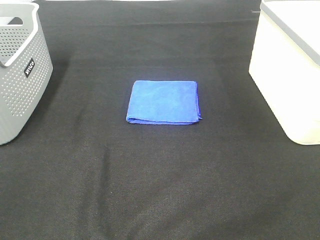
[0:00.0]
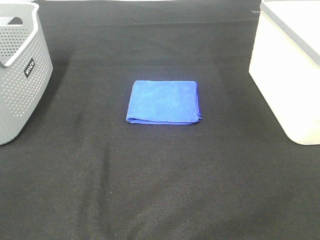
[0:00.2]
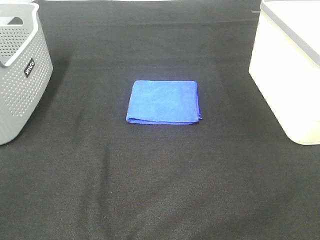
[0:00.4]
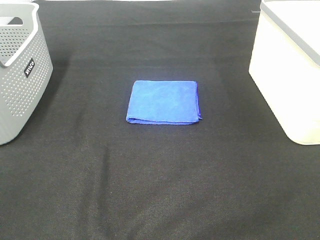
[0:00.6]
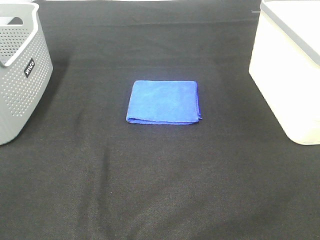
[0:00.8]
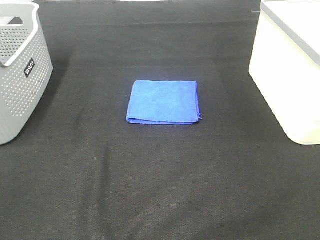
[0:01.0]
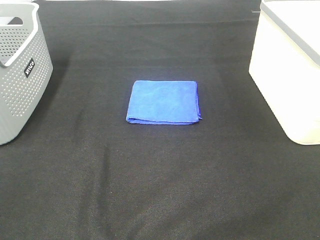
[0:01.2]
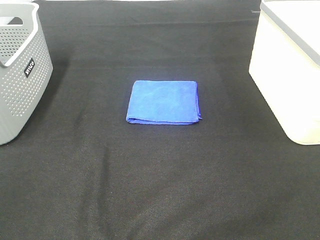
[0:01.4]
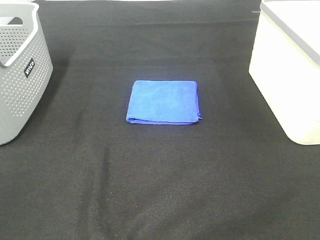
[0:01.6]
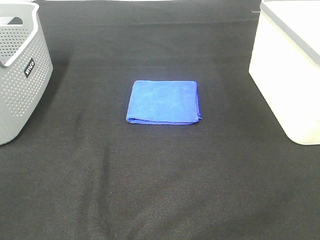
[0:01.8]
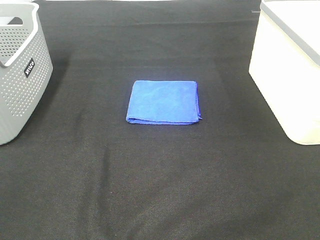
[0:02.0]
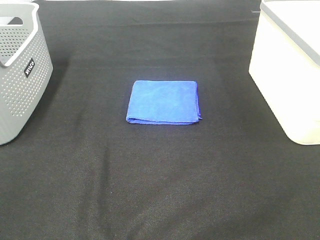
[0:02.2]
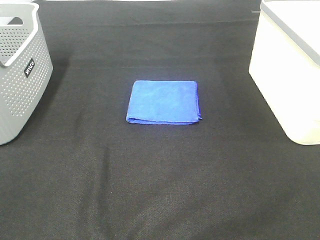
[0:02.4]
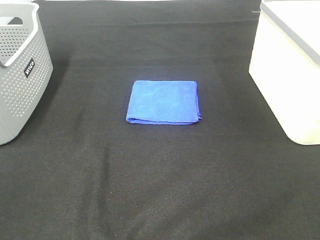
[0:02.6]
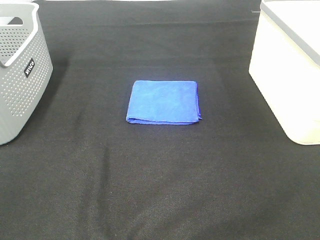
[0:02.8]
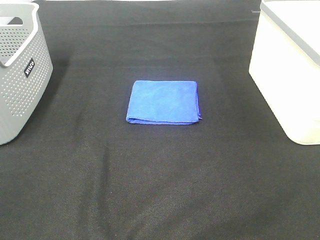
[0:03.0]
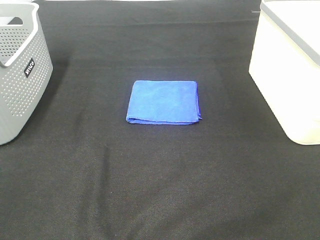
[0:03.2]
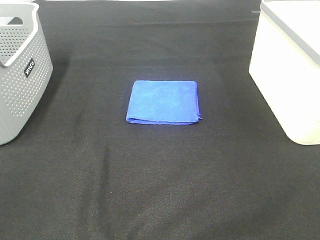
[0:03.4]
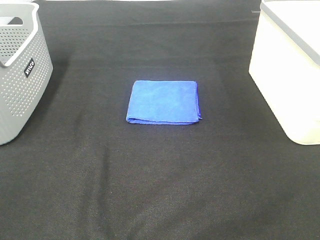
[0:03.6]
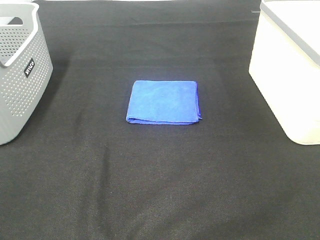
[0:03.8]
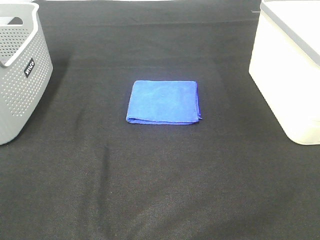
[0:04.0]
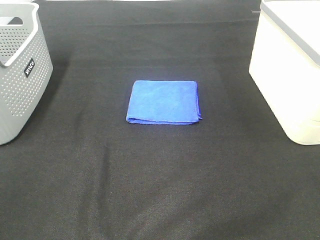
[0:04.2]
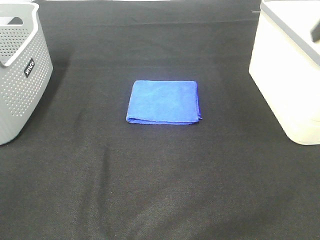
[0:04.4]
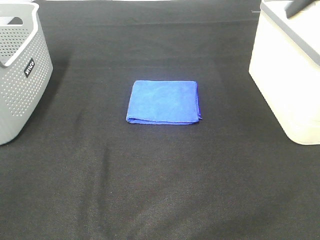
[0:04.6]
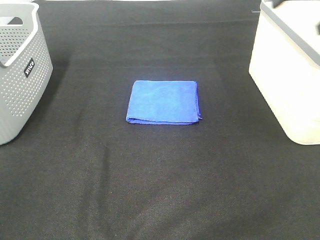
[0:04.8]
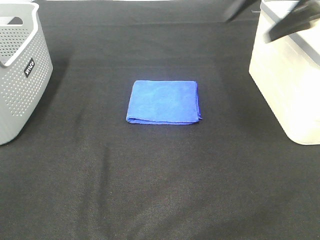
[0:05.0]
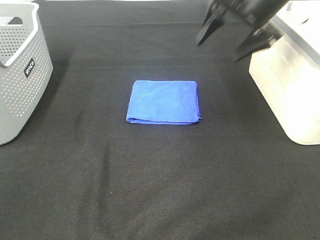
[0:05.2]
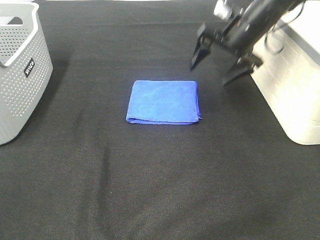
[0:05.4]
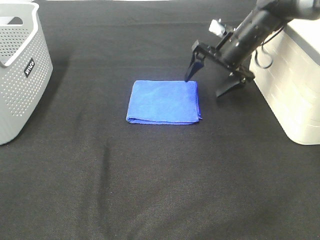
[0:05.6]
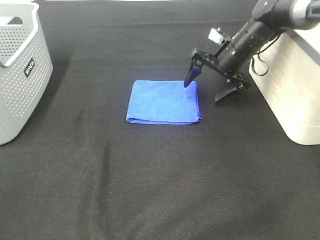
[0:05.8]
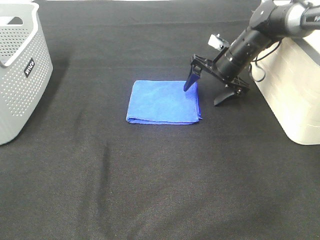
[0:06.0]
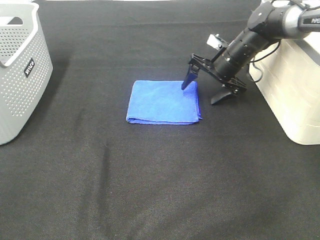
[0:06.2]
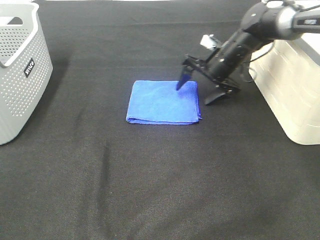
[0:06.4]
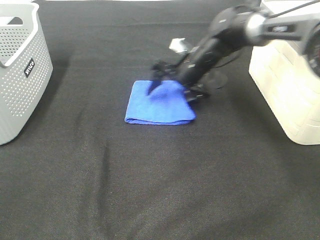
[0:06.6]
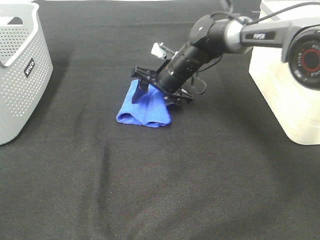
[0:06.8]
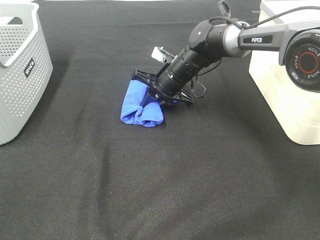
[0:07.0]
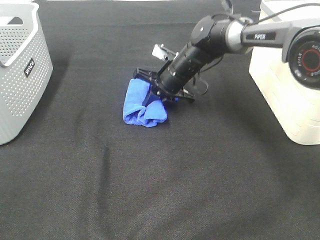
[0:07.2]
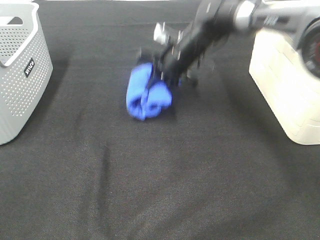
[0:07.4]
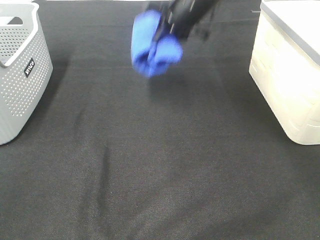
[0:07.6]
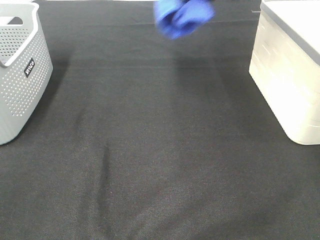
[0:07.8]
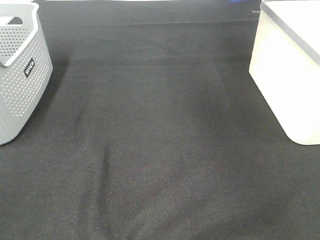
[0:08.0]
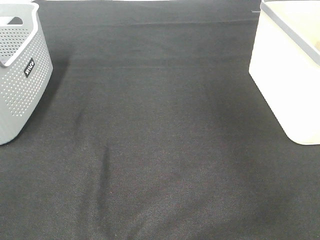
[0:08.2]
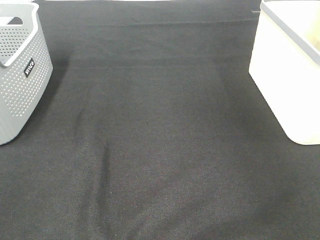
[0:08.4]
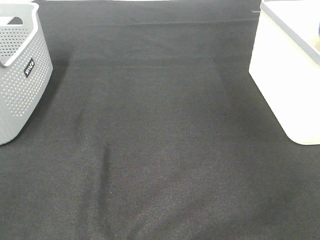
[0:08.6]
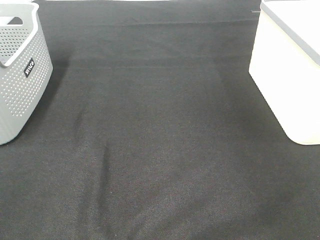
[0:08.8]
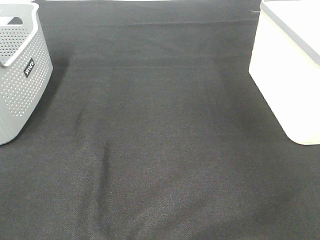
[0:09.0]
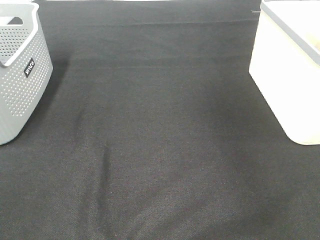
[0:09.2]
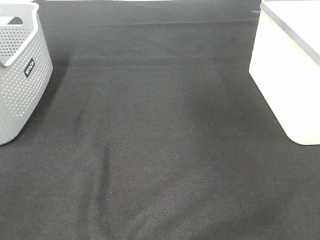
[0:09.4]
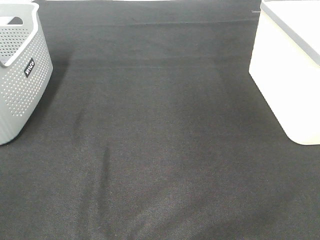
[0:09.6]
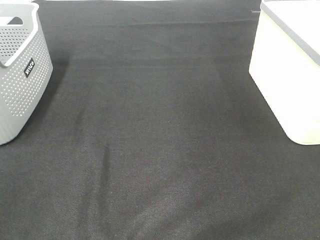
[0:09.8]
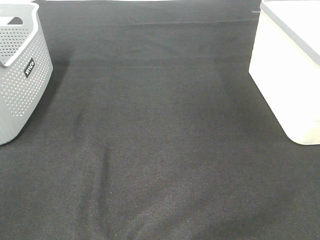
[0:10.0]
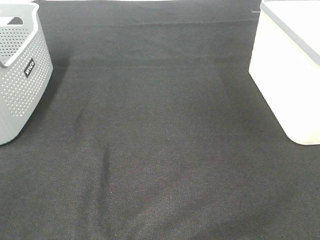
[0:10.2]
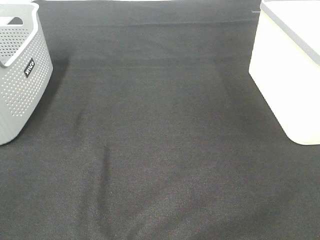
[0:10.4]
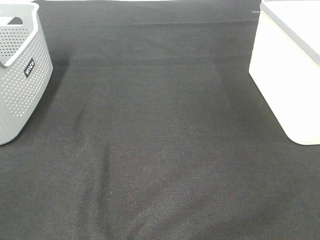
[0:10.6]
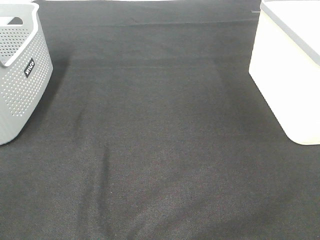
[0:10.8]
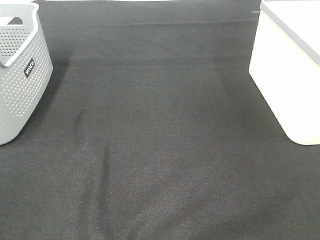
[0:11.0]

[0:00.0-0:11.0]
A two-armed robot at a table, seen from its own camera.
Step, 0:00.0 to 0:07.0: Right hand: grab the folded blue towel.
Step, 0:07.2 to 0:08.8: Right hand: place the blue towel in right basket.
0:00.0 to 0:03.2: Both grippers stay put.
0:04.8 to 0:06.2: The right gripper moves downward and forward, roughly 30 cm.
0:06.2 to 0:07.8: The right gripper goes some 25 cm upward, and closes.
0:07.8 to 0:09.4: The right gripper heads to the right, backward and upward, covering about 15 cm, and opens up.

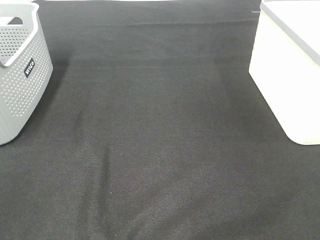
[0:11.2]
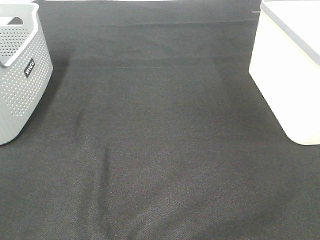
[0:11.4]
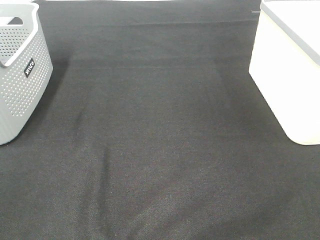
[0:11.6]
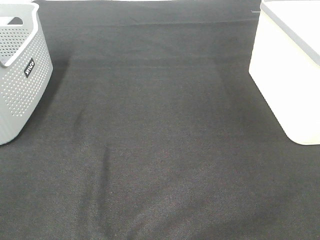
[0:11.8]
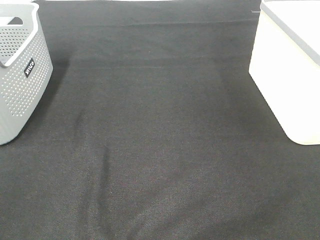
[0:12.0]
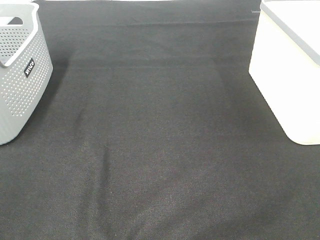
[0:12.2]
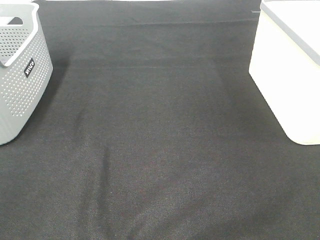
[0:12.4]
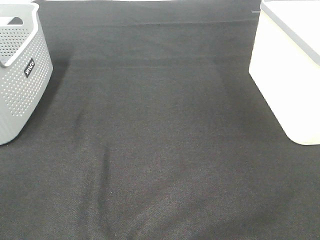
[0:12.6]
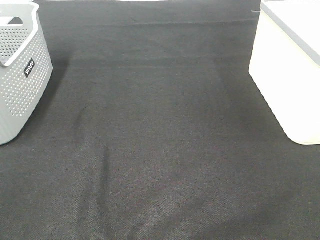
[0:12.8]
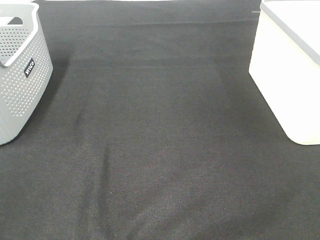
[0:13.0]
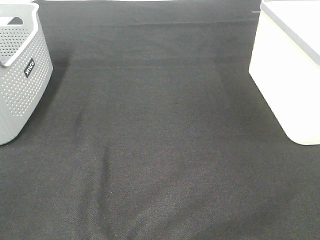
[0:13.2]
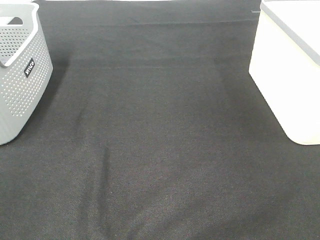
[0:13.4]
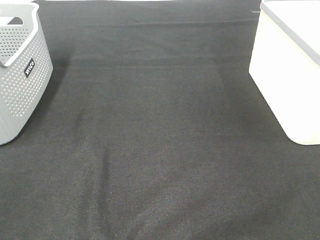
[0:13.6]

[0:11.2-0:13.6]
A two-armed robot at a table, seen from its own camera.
0:11.2 to 0:13.6: Both grippers stay put.

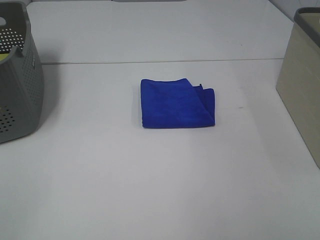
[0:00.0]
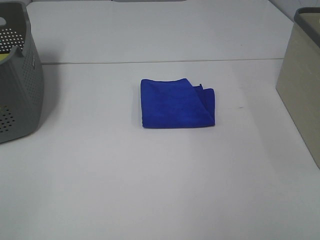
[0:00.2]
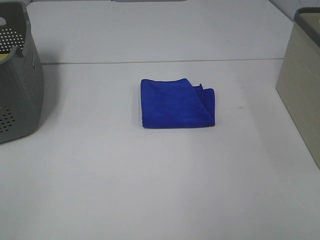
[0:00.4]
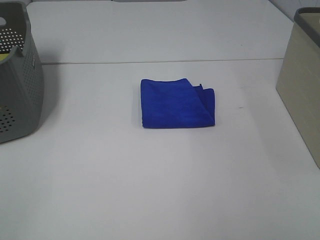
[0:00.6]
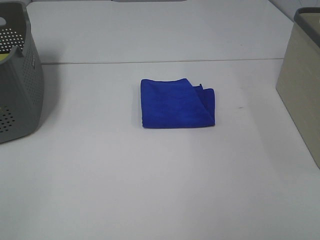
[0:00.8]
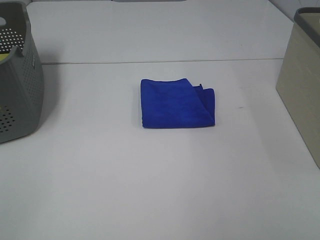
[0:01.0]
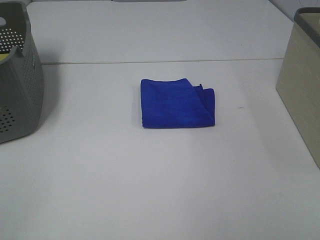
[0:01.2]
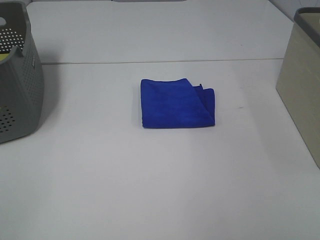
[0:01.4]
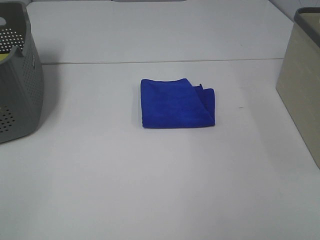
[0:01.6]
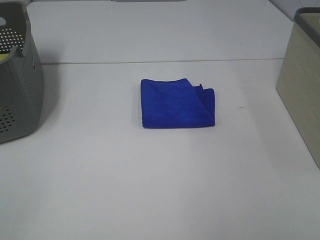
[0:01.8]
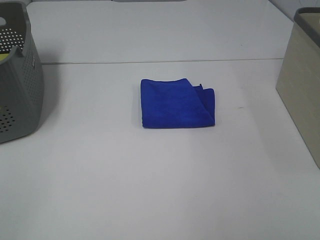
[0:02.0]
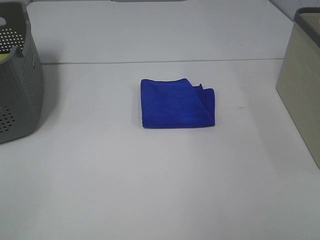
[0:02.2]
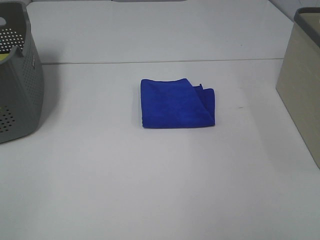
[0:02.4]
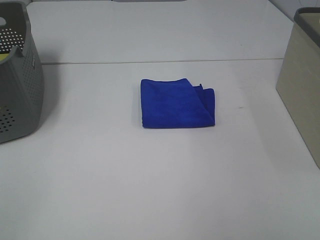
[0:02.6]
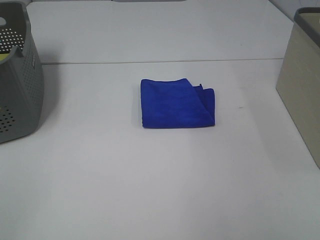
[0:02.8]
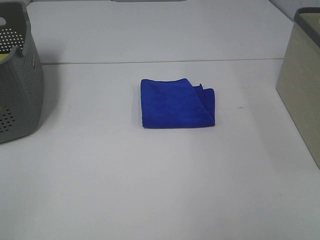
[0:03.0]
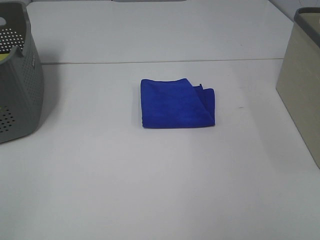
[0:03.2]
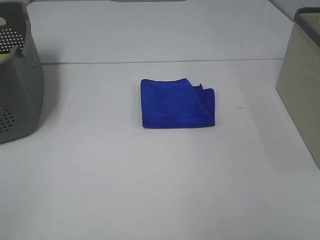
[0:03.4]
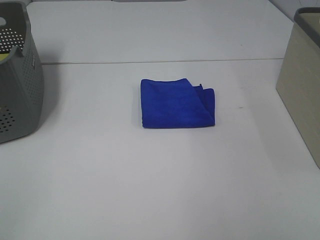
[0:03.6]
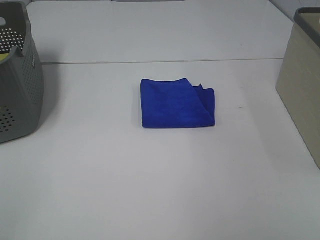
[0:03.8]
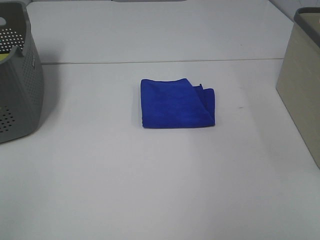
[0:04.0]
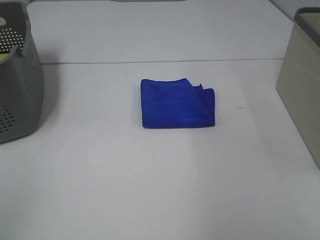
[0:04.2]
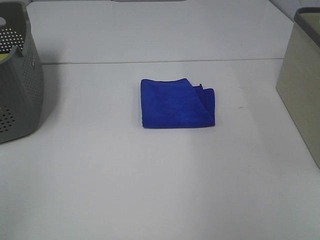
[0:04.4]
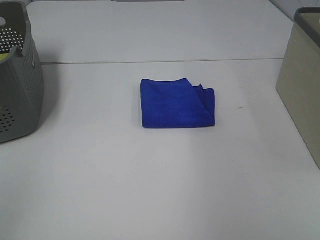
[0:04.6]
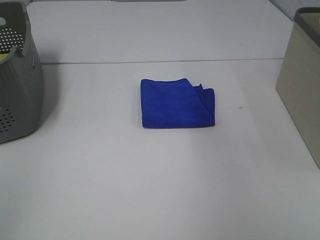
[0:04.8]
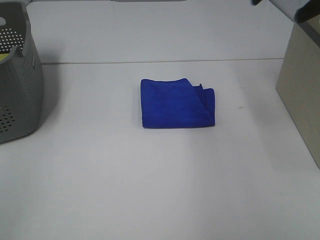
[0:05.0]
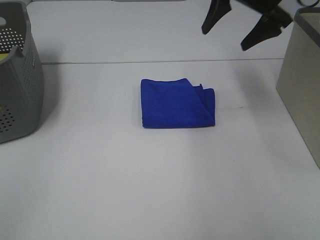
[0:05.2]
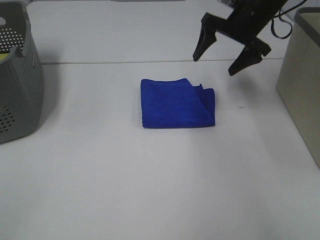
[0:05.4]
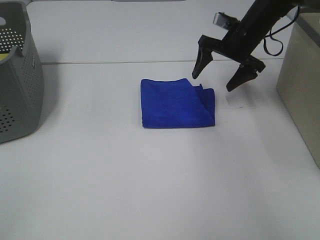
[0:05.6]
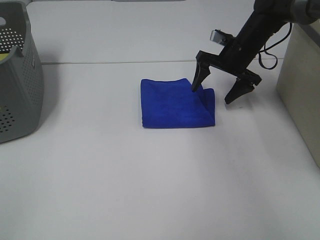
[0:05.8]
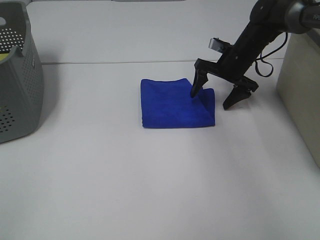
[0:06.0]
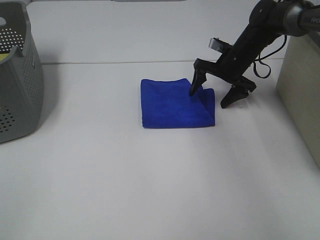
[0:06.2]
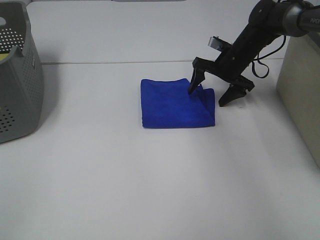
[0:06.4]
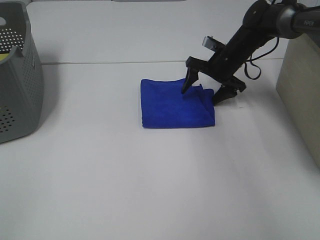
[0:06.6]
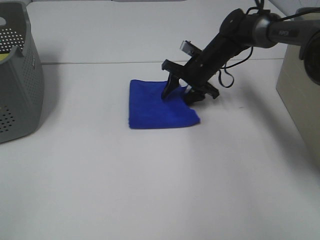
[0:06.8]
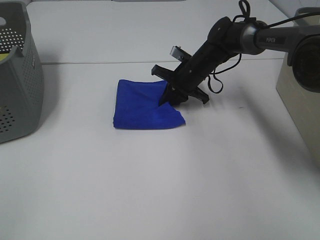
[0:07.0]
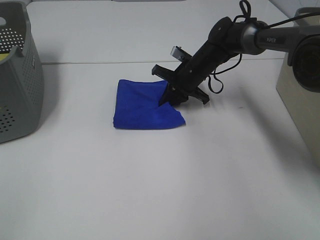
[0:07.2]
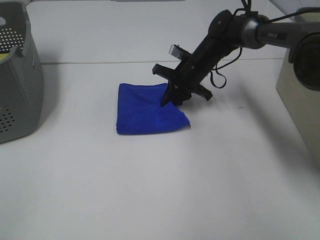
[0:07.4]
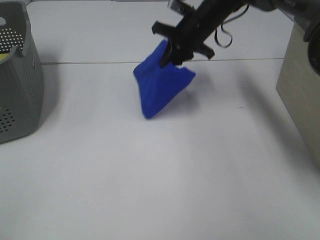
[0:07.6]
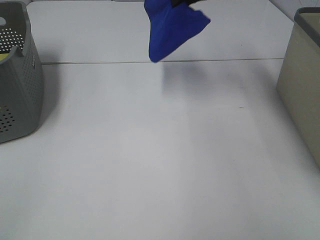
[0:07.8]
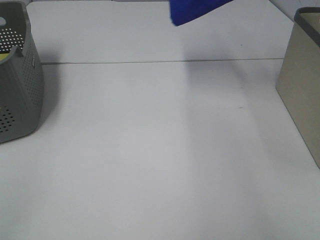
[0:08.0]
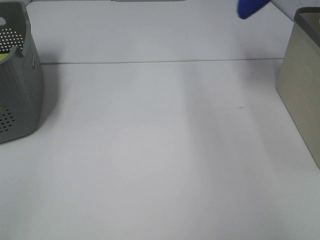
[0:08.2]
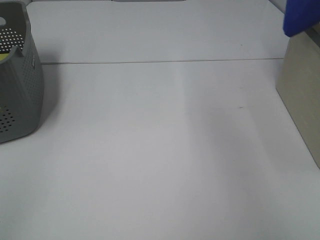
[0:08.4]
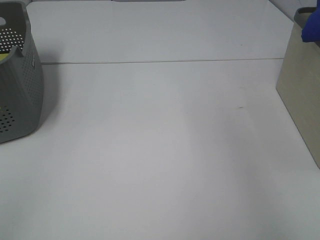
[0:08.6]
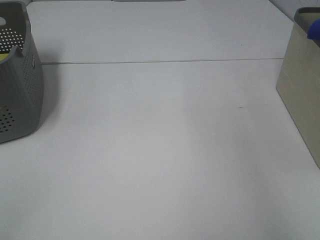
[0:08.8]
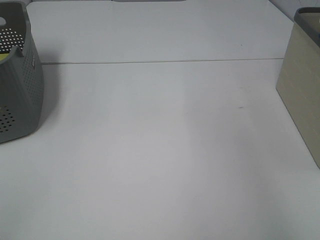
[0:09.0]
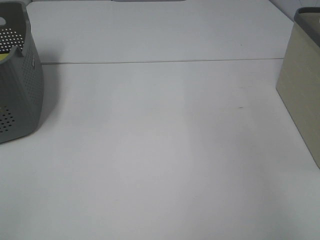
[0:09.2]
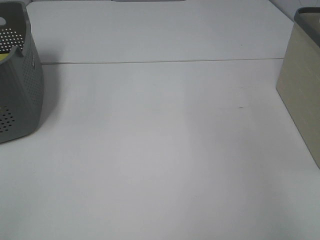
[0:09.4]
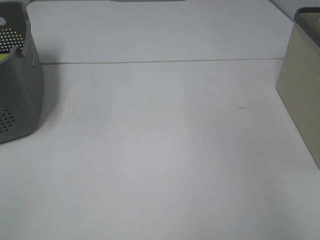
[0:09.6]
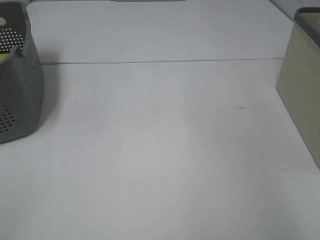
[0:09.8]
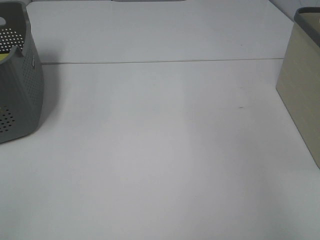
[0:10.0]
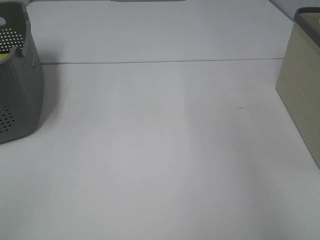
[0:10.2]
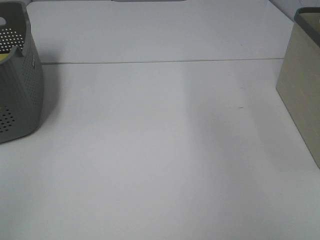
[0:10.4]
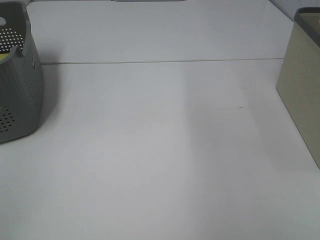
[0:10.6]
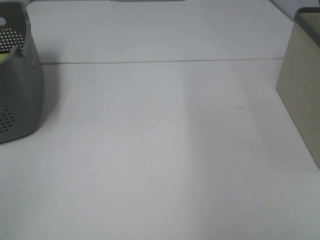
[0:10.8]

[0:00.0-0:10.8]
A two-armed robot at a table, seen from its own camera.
Step, 0:00.0 to 0:07.2: Right hand: grab the folded blue towel.
Step, 0:07.4 to 0:09.8: Right hand: place the blue towel in right basket.
0:00.0 to 0:03.0: Both grippers stay put.
0:04.6 to 0:06.2: The right gripper moves downward, forward and to the left, roughly 40 cm.
0:06.2 to 0:07.8: The right gripper moves upward, approximately 20 cm, and closes up.
0:07.8 to 0:09.2: The right gripper shifts approximately 30 cm to the right.
